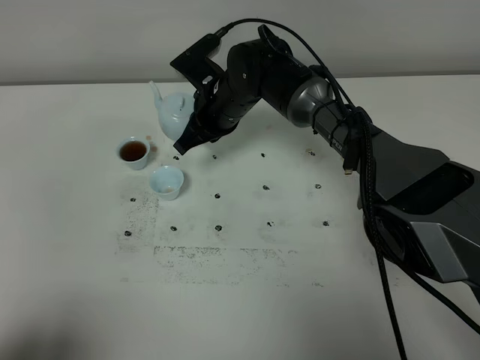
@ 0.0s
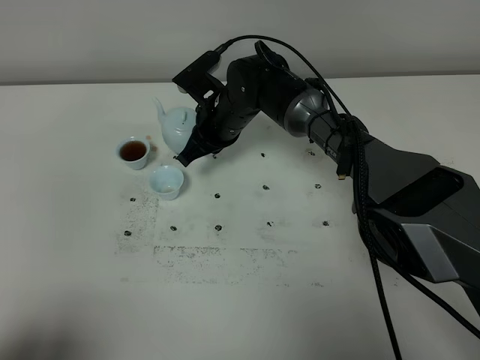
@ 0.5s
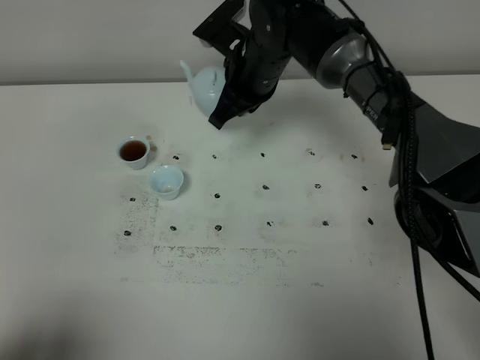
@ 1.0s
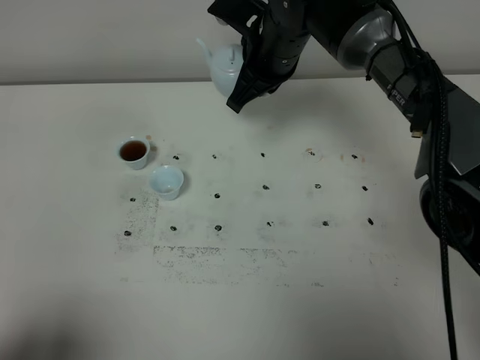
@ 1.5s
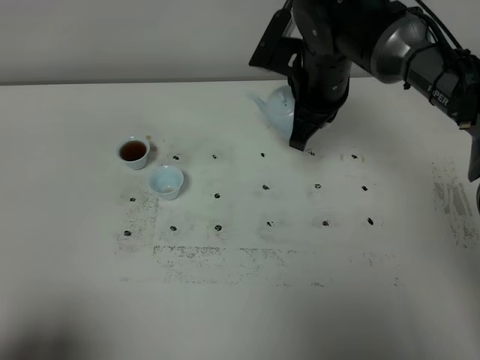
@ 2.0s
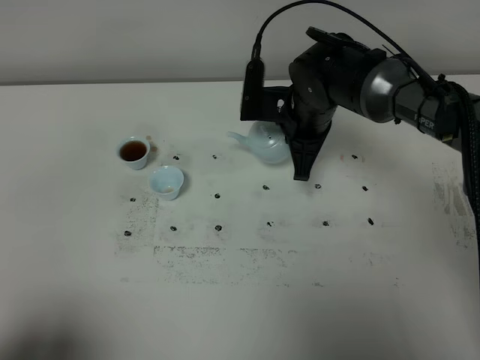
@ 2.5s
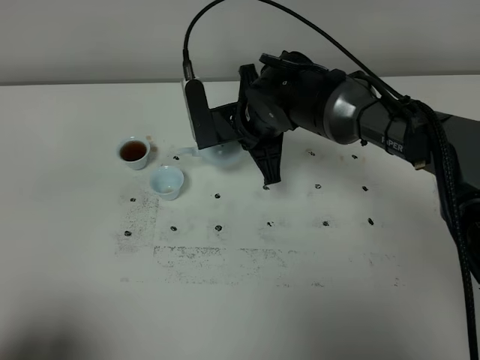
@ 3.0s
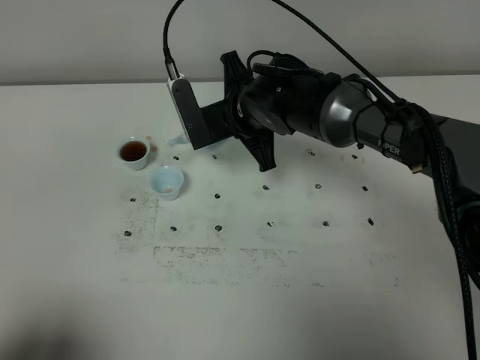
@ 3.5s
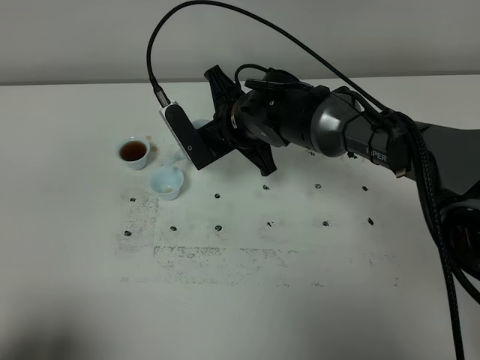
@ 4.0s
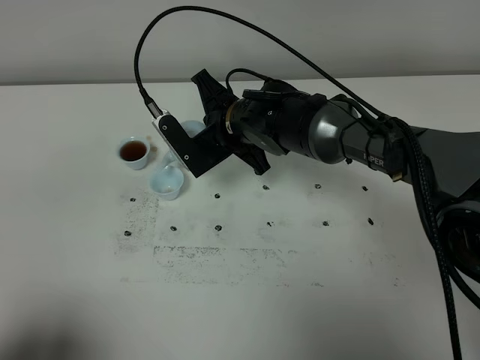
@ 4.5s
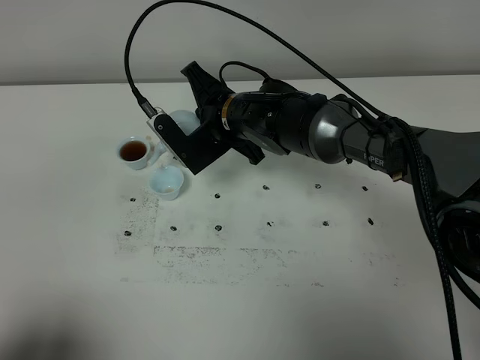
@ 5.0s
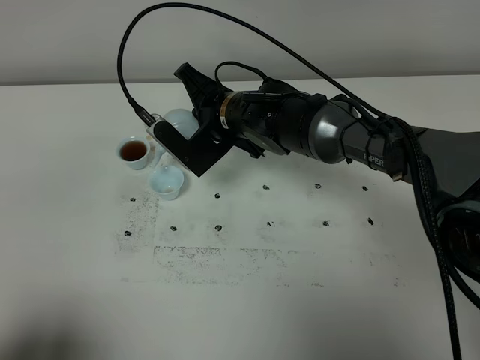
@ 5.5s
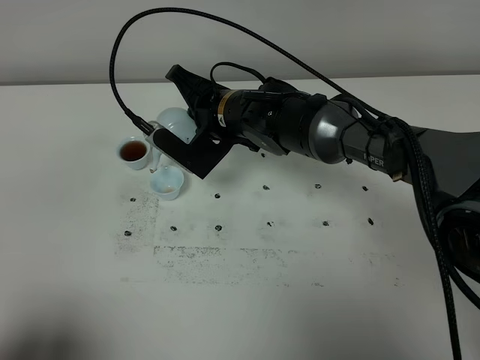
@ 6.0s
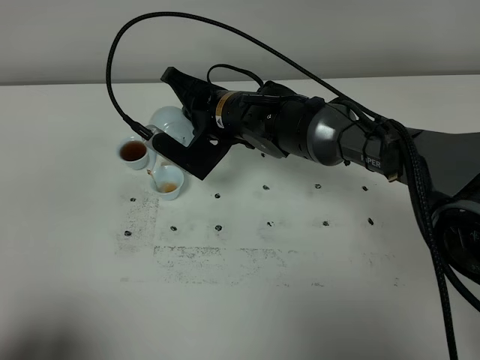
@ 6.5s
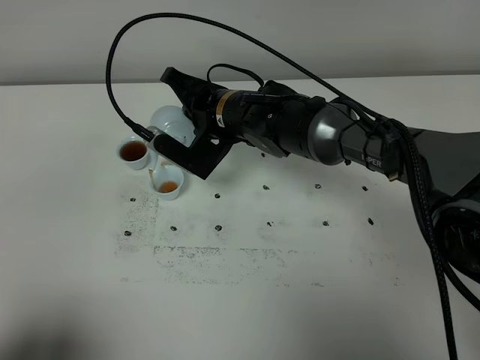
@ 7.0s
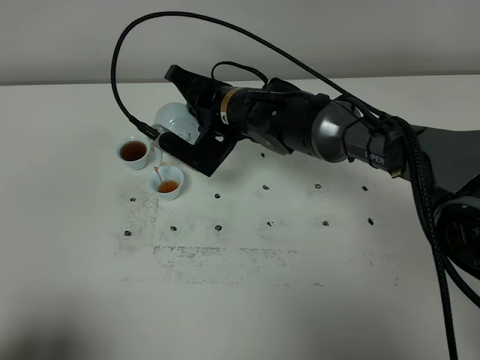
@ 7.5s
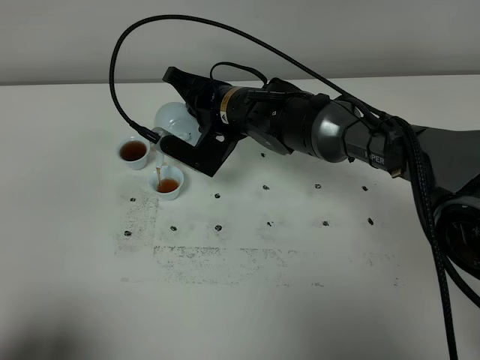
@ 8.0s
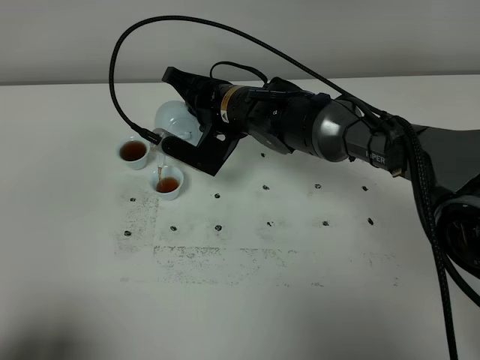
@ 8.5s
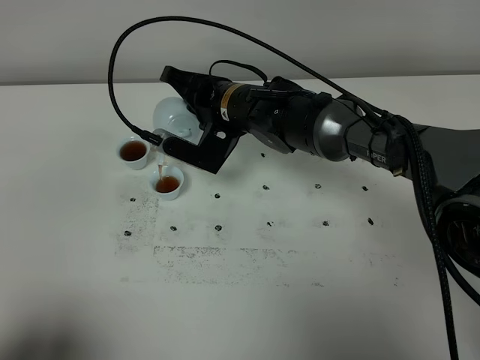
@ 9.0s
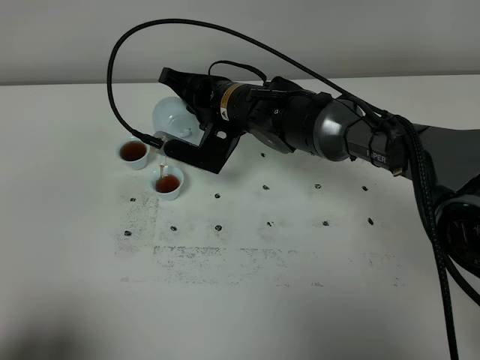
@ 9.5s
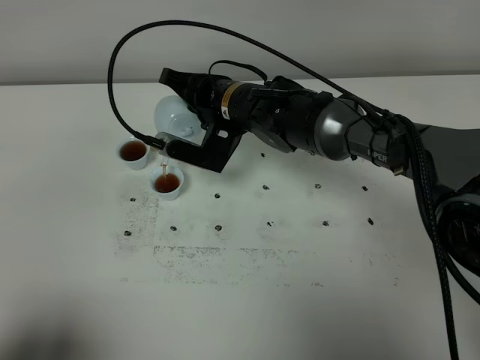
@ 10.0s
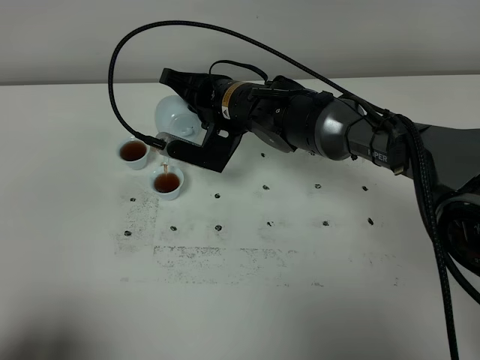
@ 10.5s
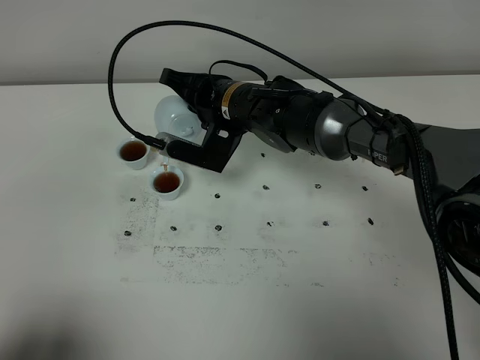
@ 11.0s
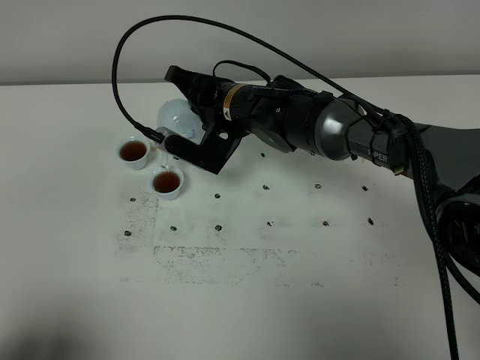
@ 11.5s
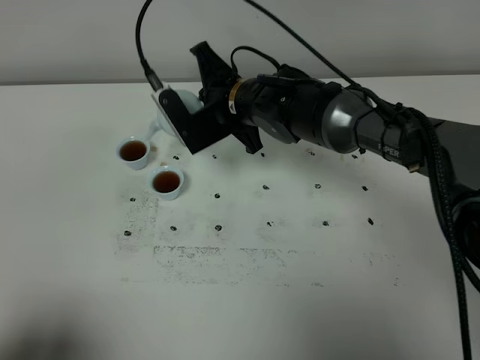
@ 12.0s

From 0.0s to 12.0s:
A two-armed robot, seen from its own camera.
Task of the whole recording: grasp the blue porcelain teapot and pour the tea into the two blue porcelain teacups one by one, put the blue porcelain teapot back in its original place.
Step, from 0.0s to 12.0s: Pour tea into the teacup with the right gripper.
From 0.0s to 2.0s: The right gripper shifts some 15 cm to the right and upward.
From 2.0s to 4.0s: The right gripper shifts roughly 10 cm to the left and downward.
From 6.0s to 10.0s: There are only small adjustments of the grippers.

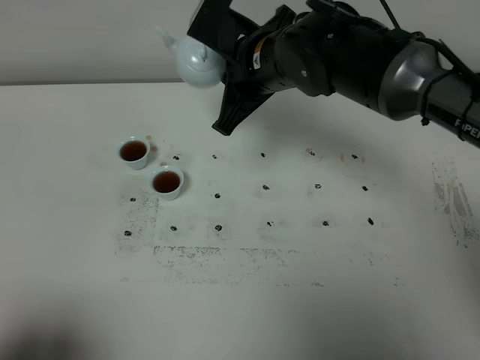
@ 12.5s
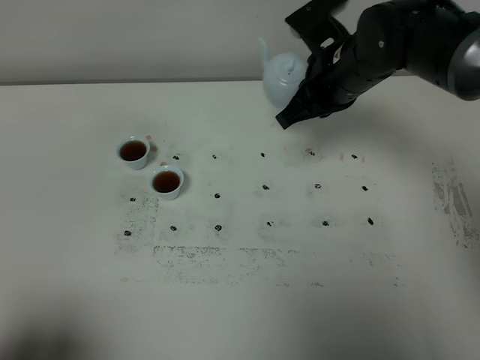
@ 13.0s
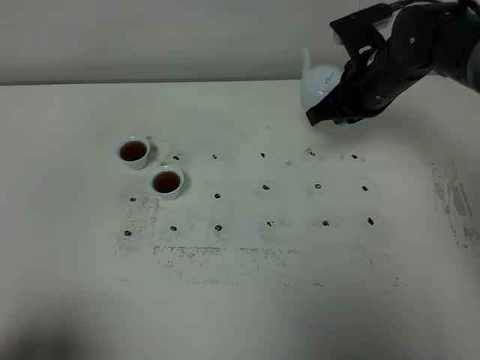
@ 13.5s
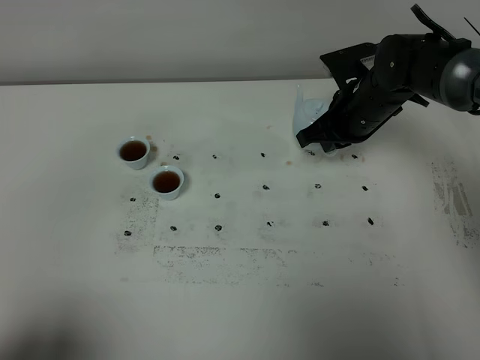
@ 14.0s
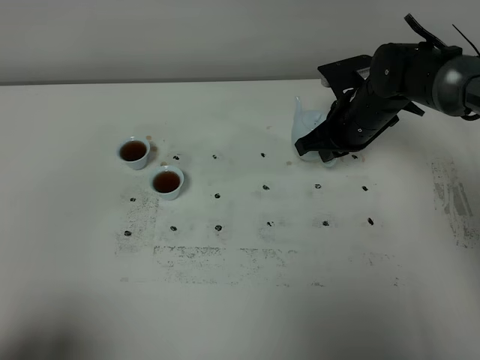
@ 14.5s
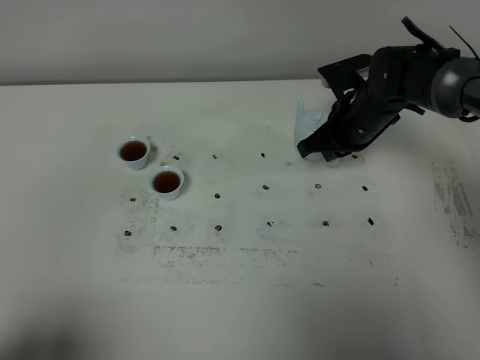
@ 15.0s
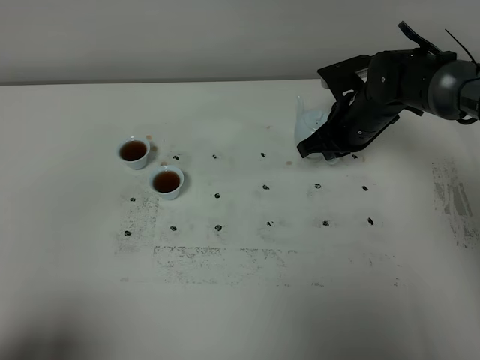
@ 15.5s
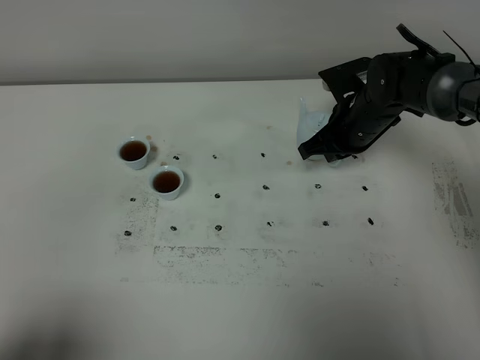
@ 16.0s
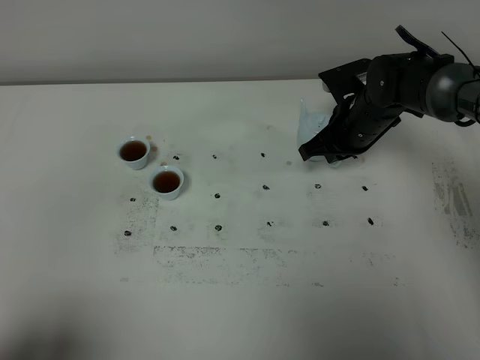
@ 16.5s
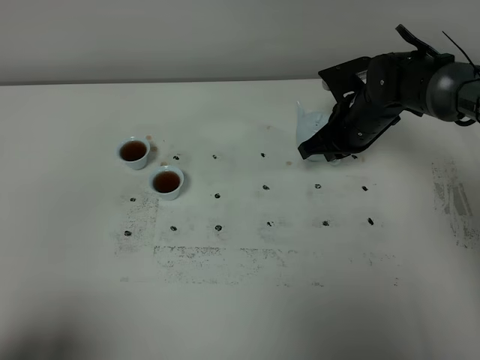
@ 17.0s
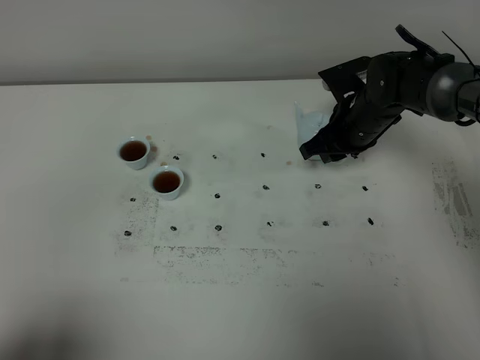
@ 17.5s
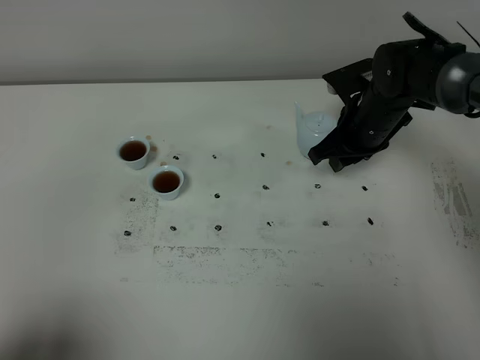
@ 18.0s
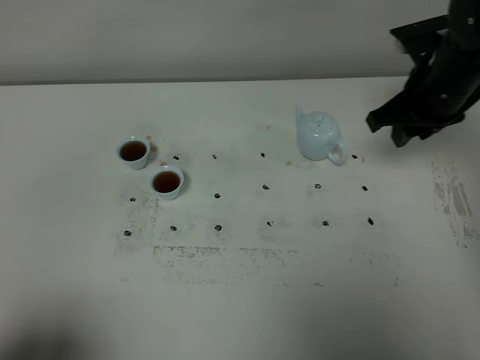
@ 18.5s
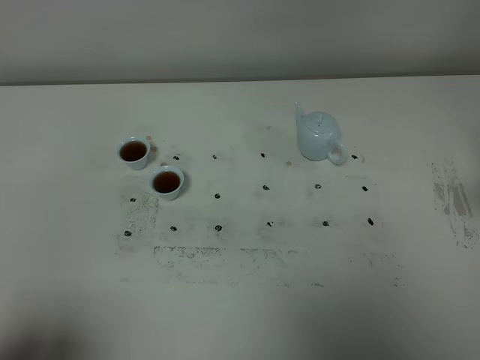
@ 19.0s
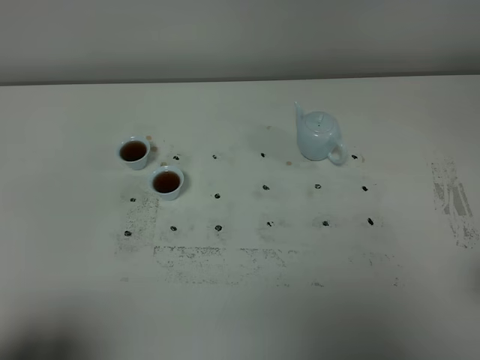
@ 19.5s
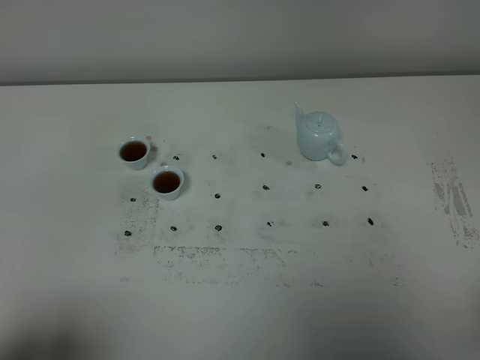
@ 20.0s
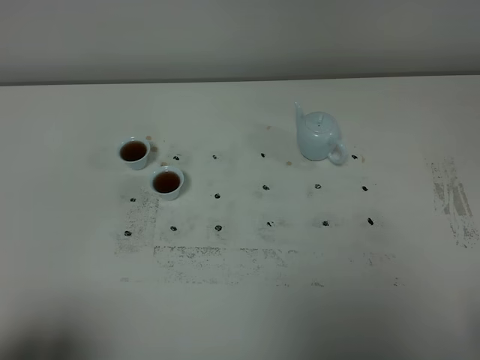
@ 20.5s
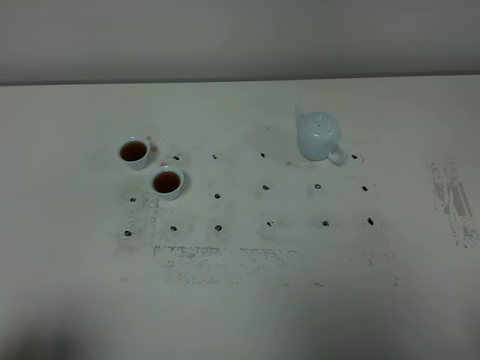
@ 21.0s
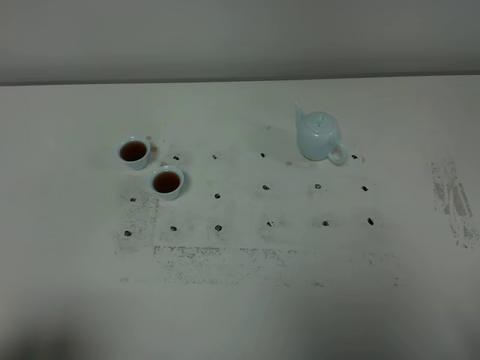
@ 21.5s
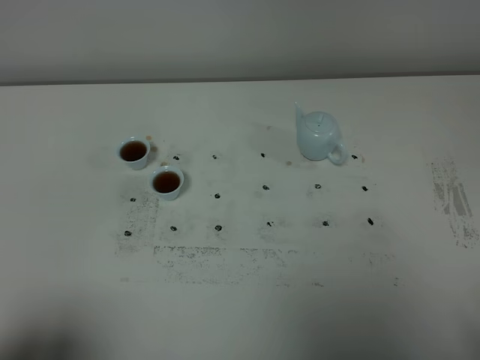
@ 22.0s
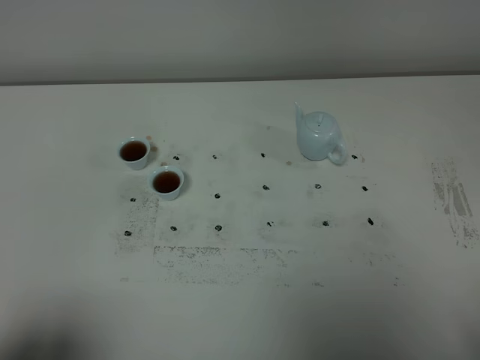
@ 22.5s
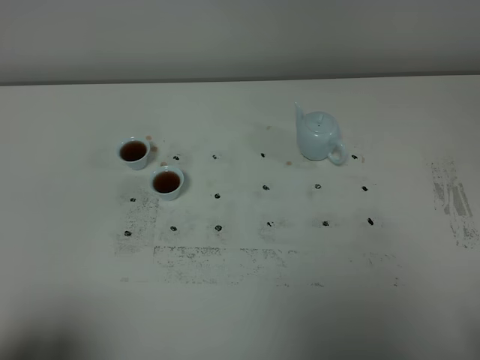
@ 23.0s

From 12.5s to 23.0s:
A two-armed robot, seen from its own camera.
Task of the whole recording: grasp the blue porcelain teapot and pour the tea into the two blue porcelain teacups one by one, put the blue porcelain teapot back in its original place.
From 12.5s to 14.5s: The right gripper shifts about 15 cm to the right and downward.
From 14.5s to 16.5s: The grippers make only small movements.
From 16.5s to 19.0s: The right gripper shifts approximately 30 cm backward, to the right and upward, and opens up.

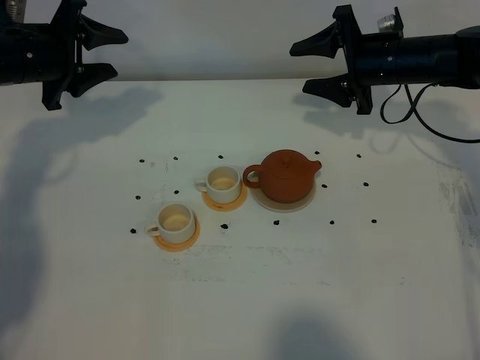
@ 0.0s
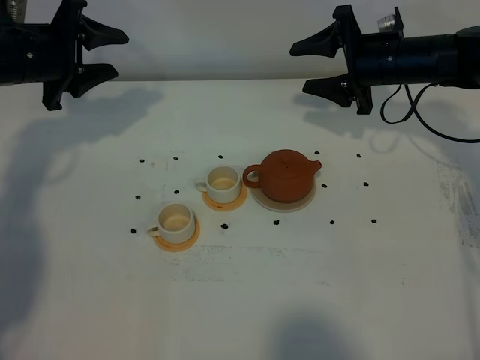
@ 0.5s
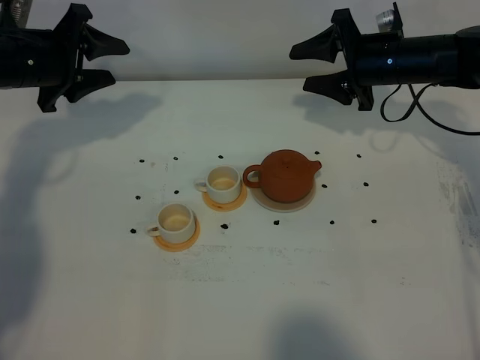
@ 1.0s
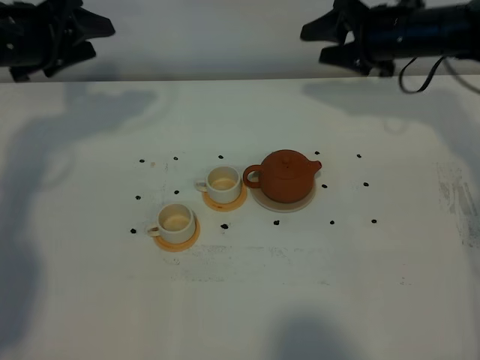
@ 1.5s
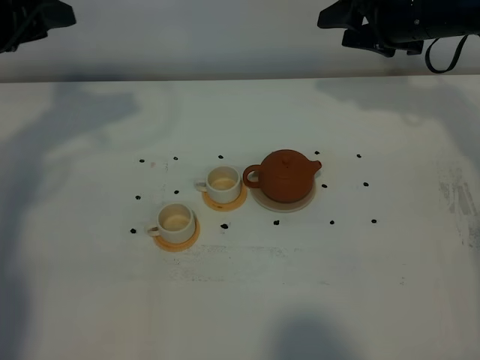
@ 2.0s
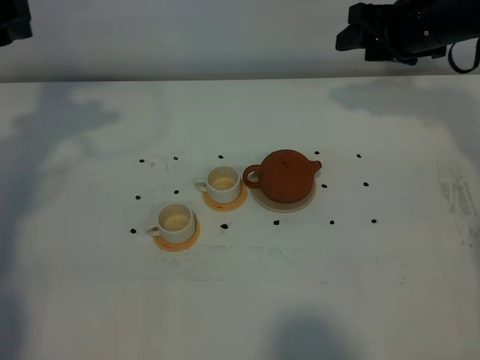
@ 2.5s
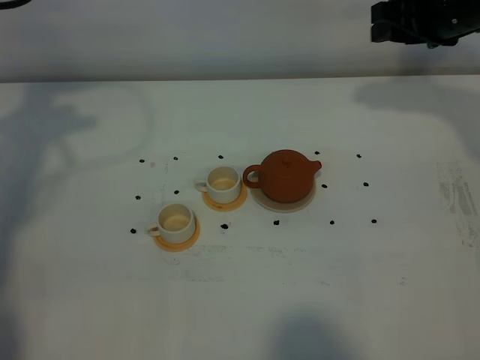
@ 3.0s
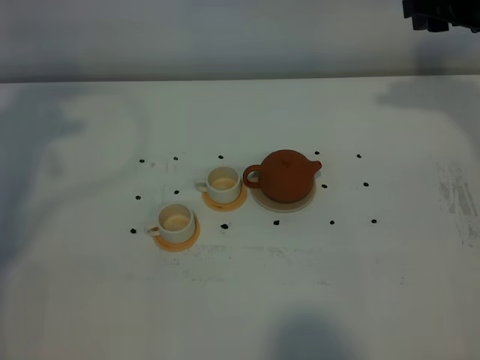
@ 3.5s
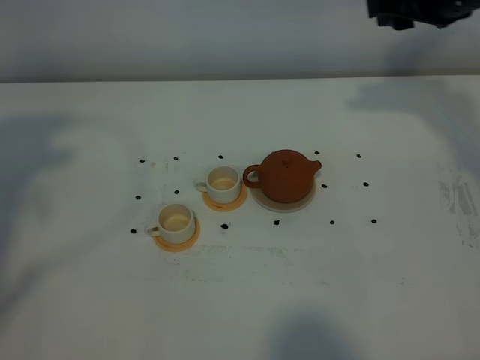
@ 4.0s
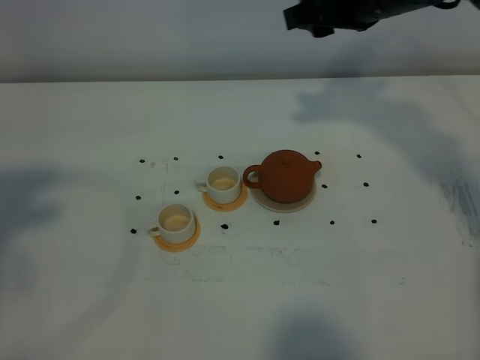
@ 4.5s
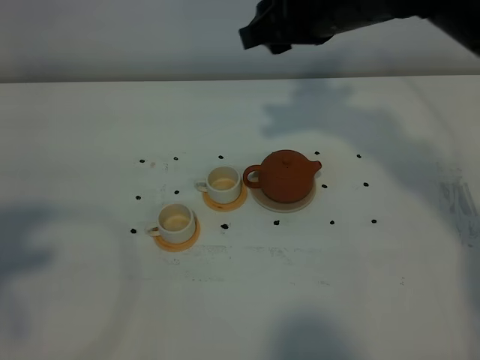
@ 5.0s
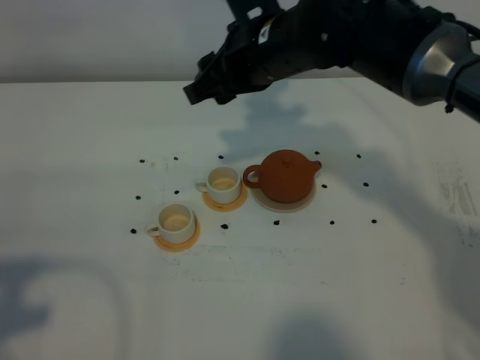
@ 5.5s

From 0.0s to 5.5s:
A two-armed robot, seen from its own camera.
Task of the whole recording: grasp the brown teapot and pour the tea into the two white teacups one by one, put the brown teapot back in its original place.
From 0.0s to 2.0s: The left gripper goes about 10 cm upward and backward. Meanwhile the right gripper travels upward by approximately 5 cm.
From 2.0s to 3.5s: The right gripper travels upward and to the right by some 10 cm. The left gripper moves upward and backward, some 15 cm.
From 3.5s to 5.5s: The right gripper travels to the left by roughly 25 cm; the left gripper moves backward, approximately 25 cm.
